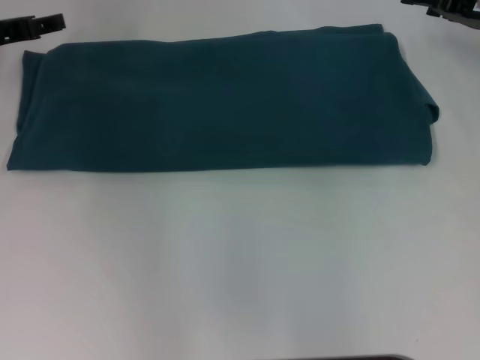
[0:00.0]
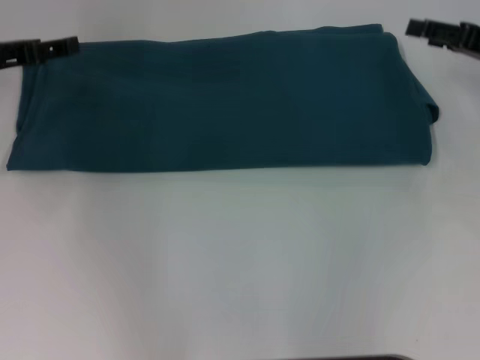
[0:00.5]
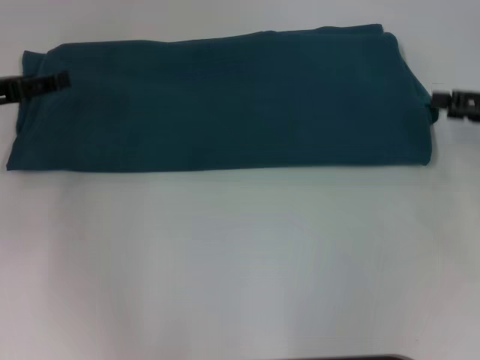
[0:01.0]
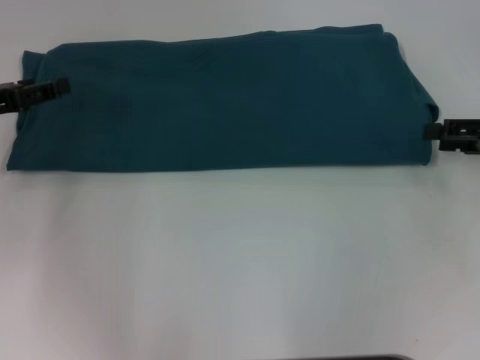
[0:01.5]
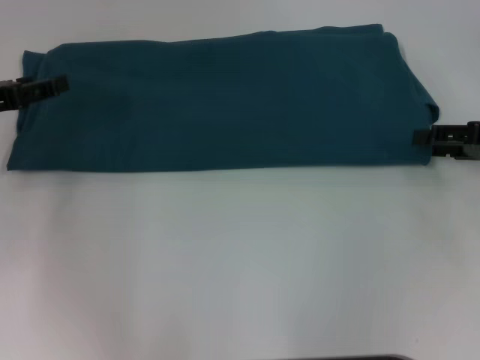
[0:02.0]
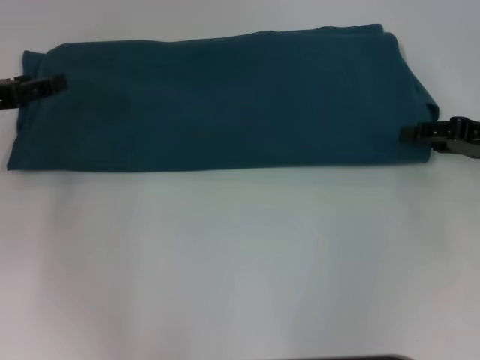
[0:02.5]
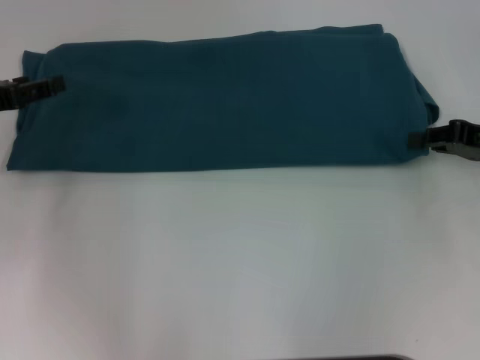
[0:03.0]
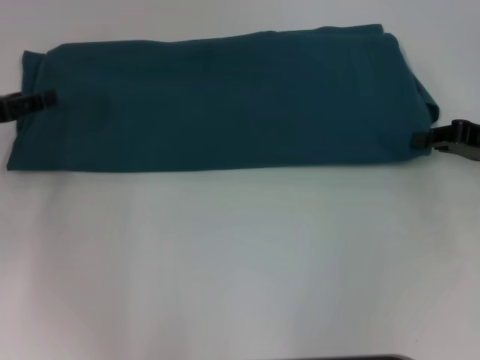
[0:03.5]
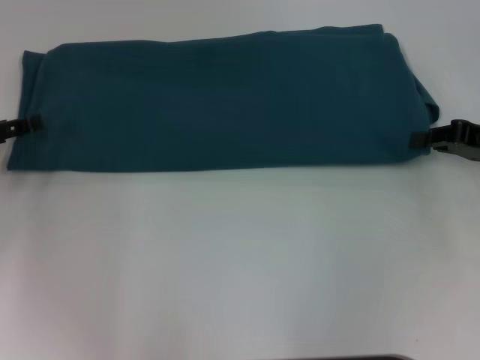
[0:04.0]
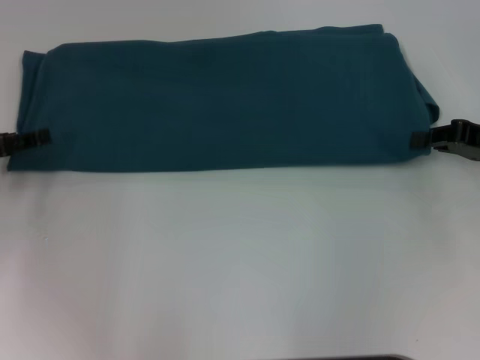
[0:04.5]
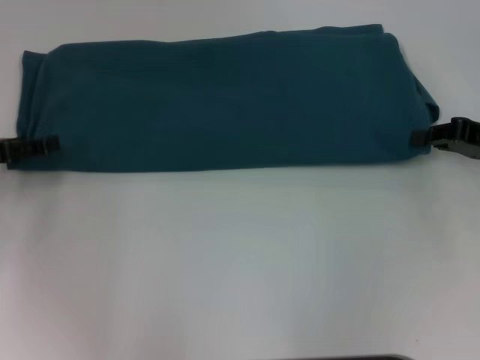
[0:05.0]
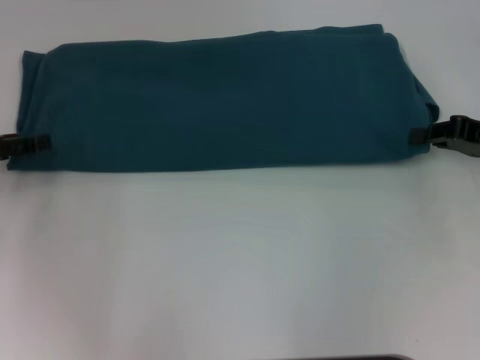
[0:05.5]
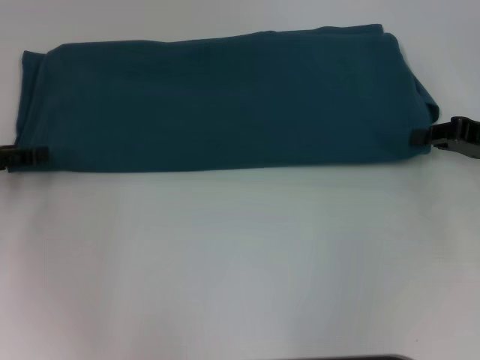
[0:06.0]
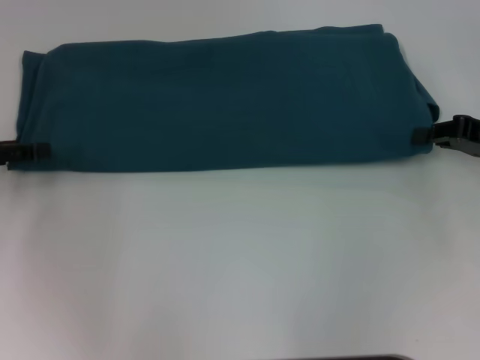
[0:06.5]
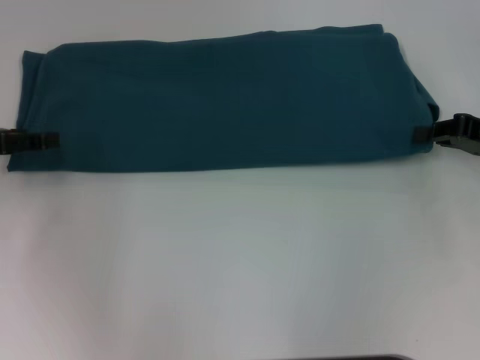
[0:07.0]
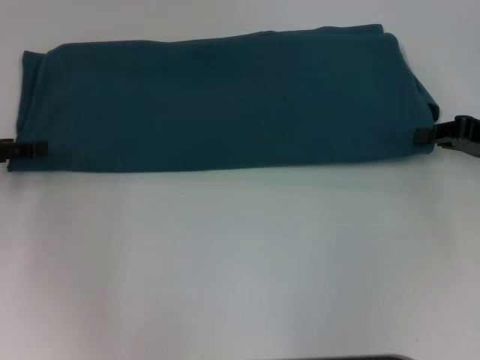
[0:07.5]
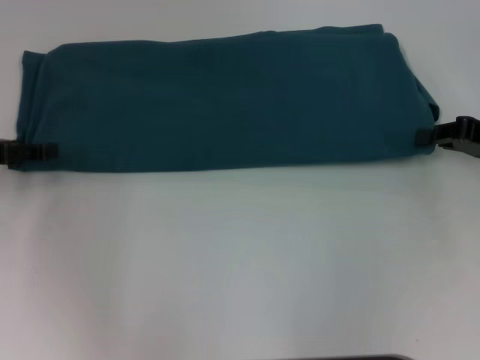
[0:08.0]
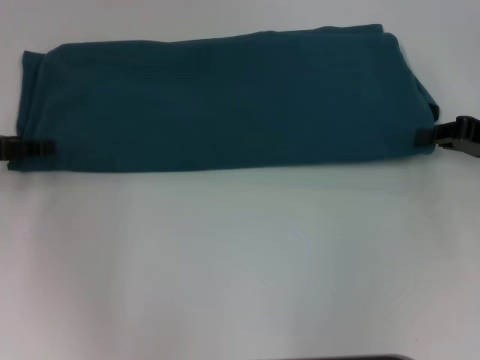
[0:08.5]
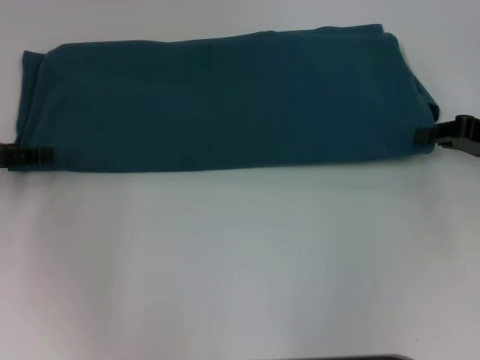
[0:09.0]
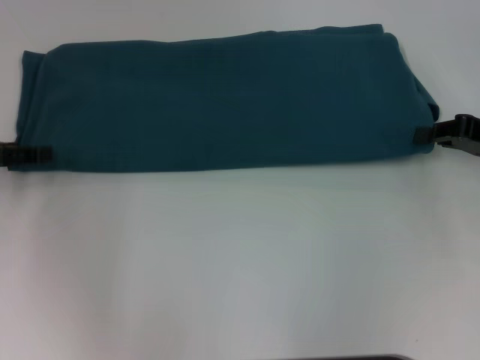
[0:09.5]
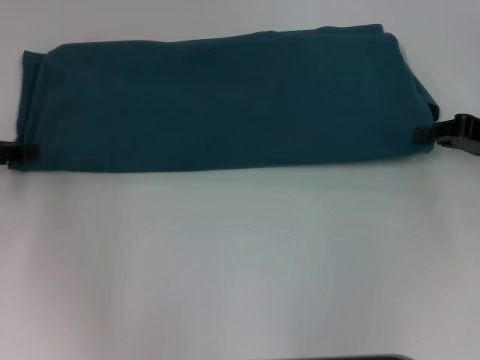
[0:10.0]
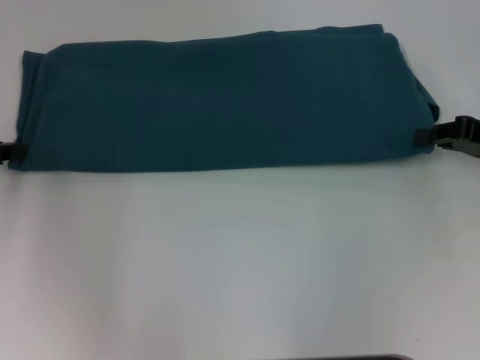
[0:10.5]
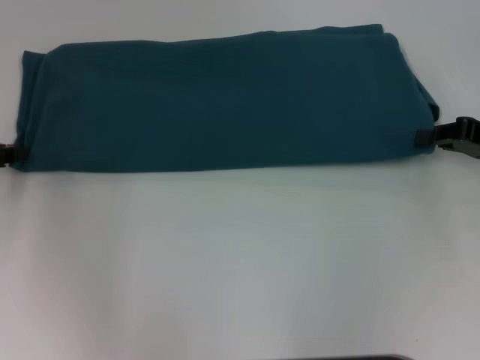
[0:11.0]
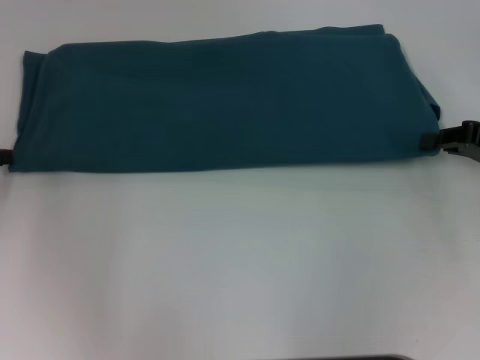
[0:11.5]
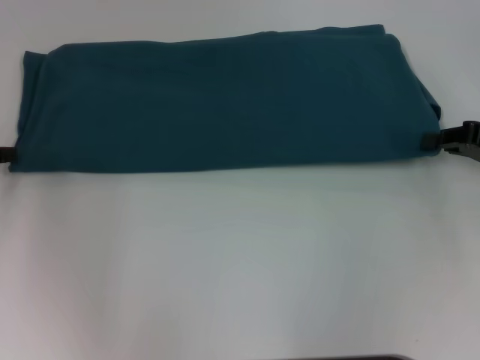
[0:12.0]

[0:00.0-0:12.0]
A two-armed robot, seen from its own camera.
0:00.0 to 0:02.0: Both grippers travel together backward, about 10 cm.
0:08.0 to 0:10.0: Both grippers stay put.

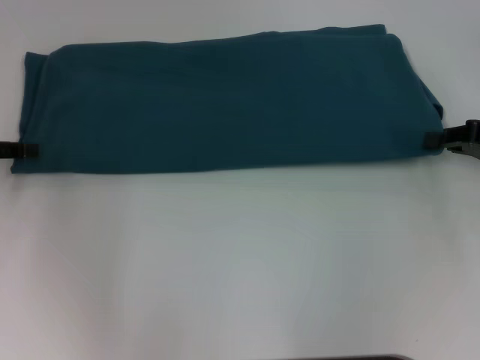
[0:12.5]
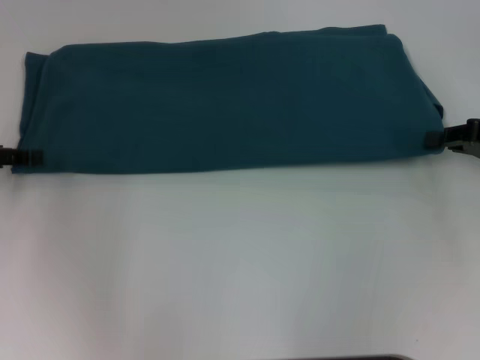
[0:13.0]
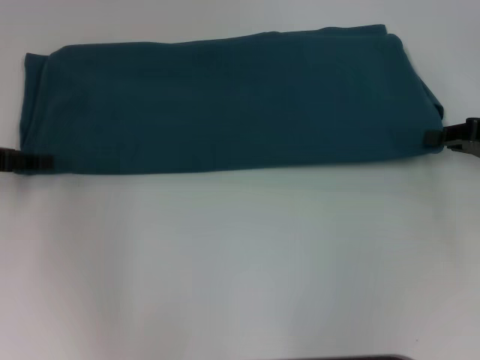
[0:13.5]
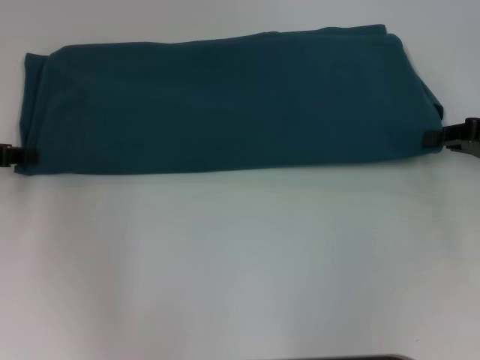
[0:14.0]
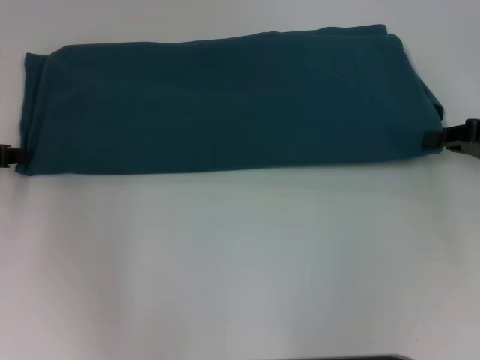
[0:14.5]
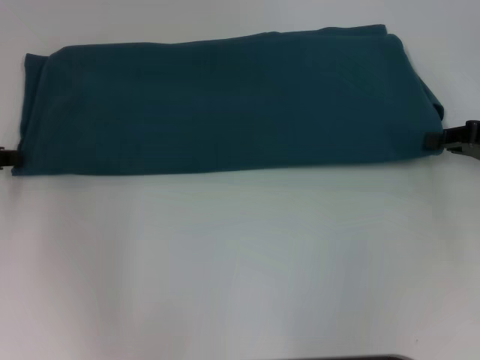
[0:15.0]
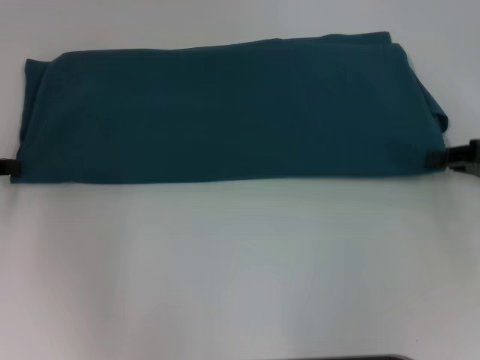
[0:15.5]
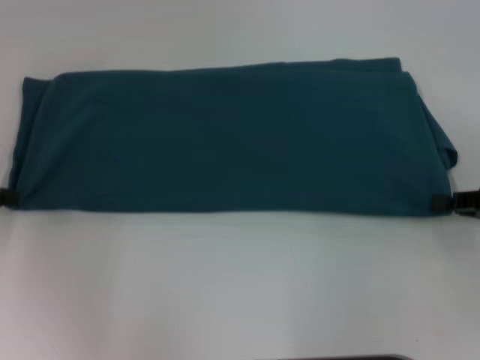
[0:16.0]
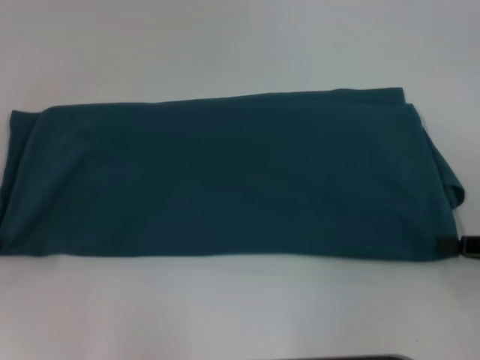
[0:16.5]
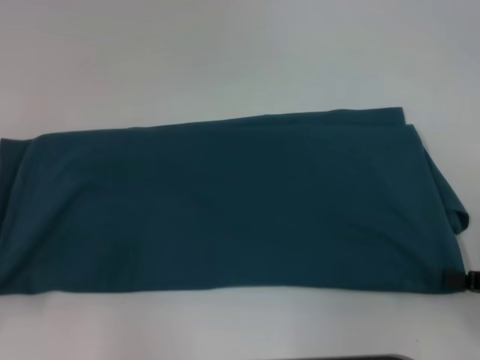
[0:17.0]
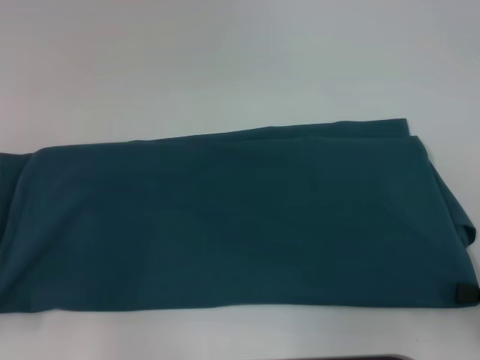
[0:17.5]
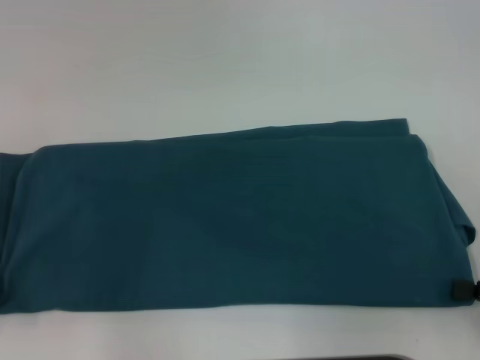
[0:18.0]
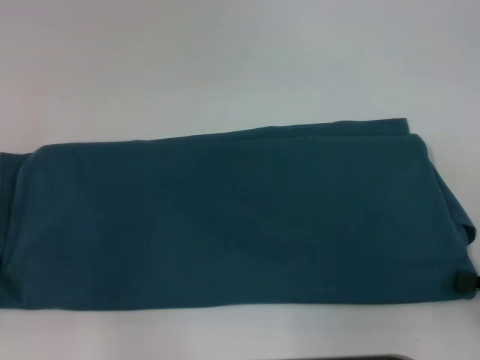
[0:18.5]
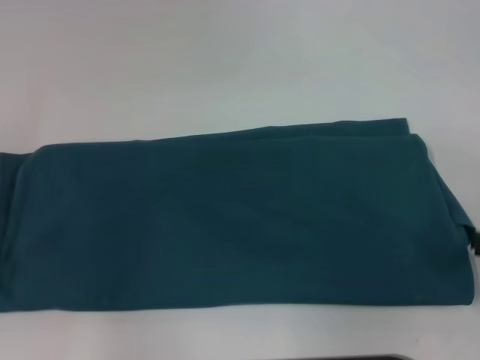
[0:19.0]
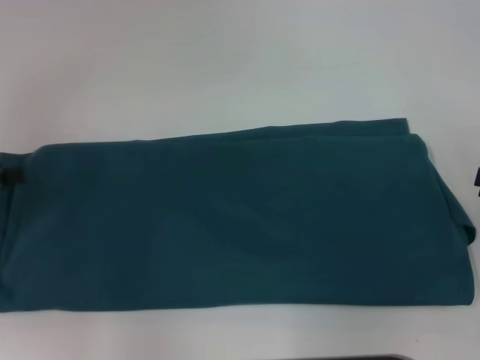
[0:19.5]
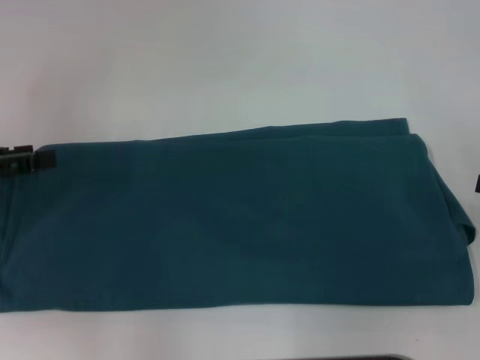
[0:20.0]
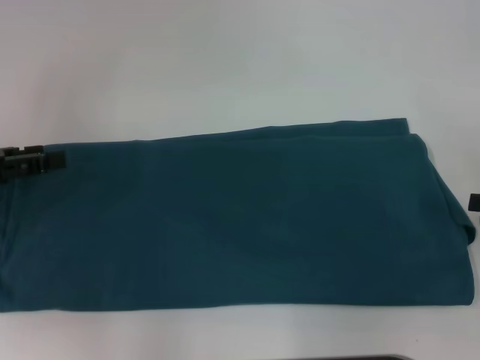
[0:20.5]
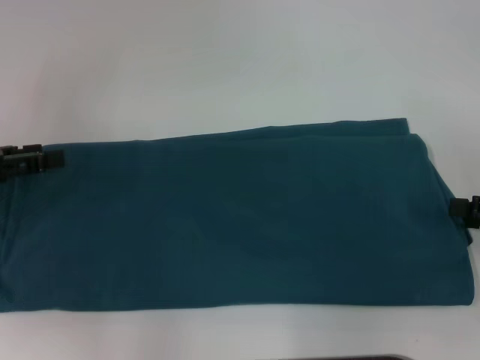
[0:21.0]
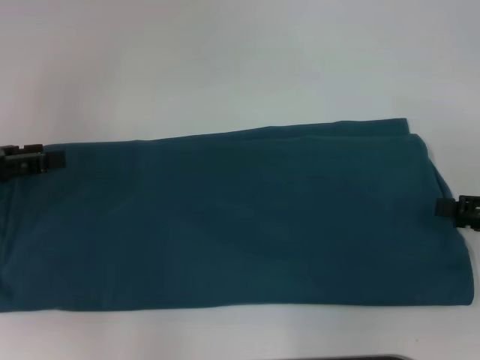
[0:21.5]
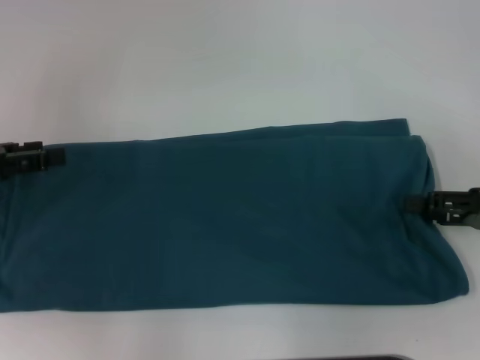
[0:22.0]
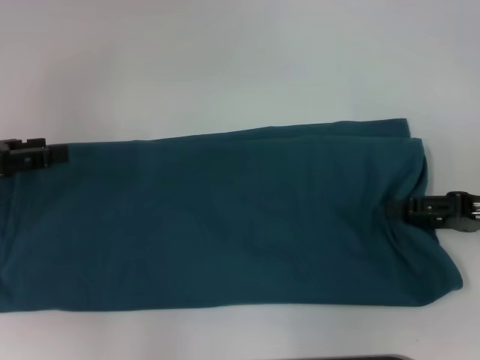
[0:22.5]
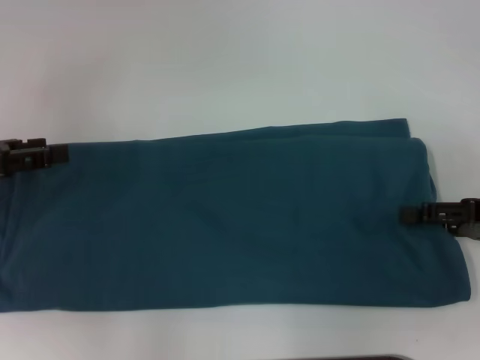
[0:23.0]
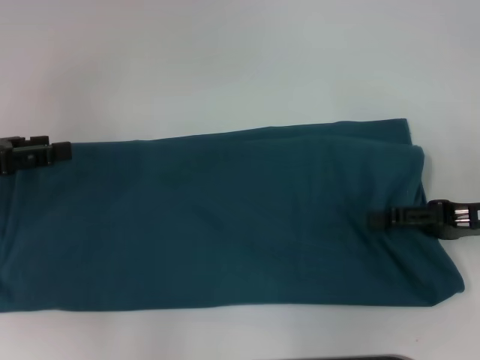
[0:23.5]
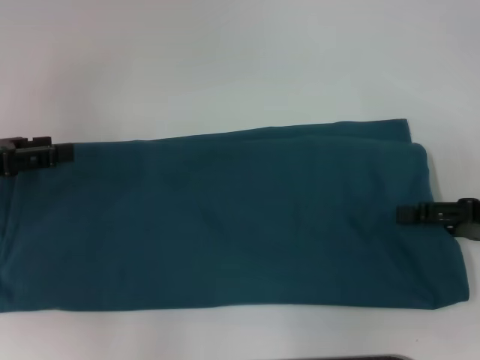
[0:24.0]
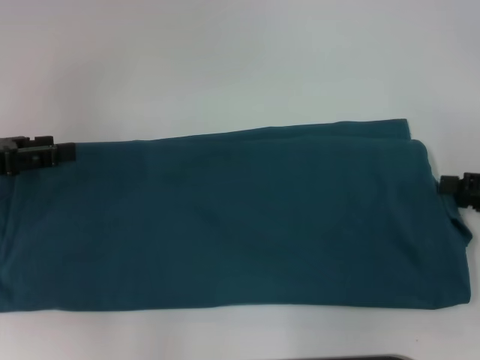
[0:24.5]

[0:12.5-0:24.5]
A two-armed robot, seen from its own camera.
Step, 0:12.5 to 0:18.5: Pull the clothes with your left hand.
Step, 0:12.5 to 0:18.5: Pull the clothes with your right hand.
0:14.5 to 0:16.5: Both grippers move backward, roughly 10 cm.
0:18.5 to 0:20.5: The left gripper travels forward and to the right by roughly 10 cm, and opens up. The right gripper heads forward, covering some 5 cm, and opens up.
0:20.5 to 0:22.5: The right gripper heads to the left, covering roughly 5 cm.
0:22.5 to 0:24.5: The grippers move only a little.

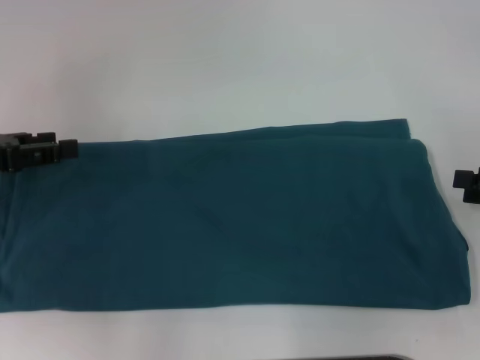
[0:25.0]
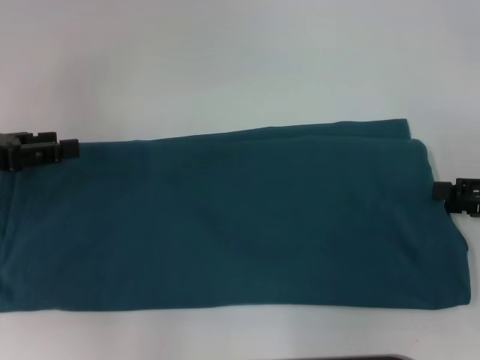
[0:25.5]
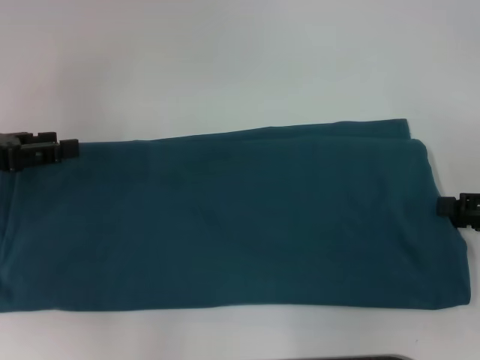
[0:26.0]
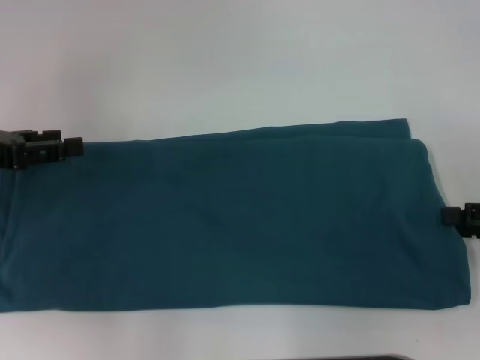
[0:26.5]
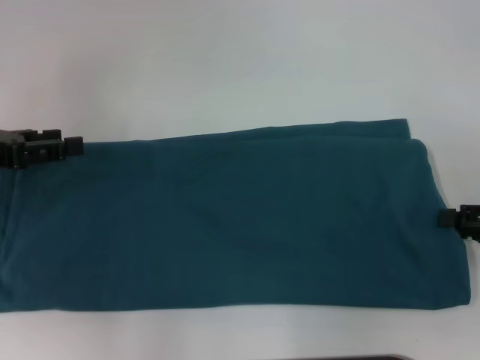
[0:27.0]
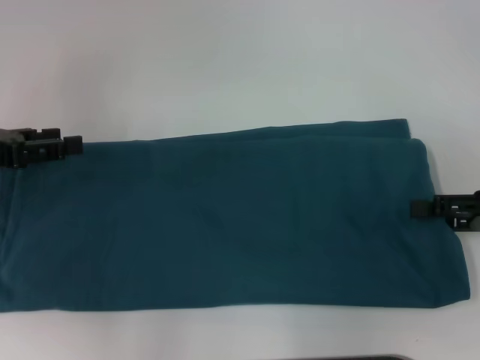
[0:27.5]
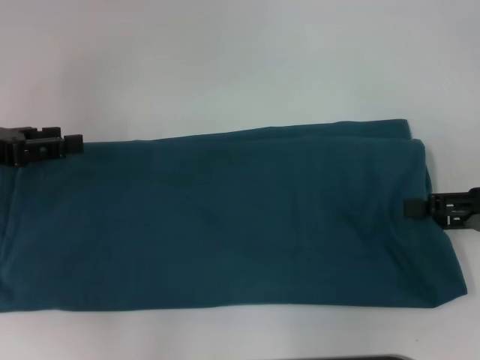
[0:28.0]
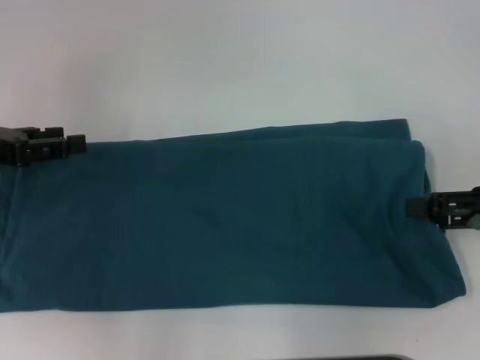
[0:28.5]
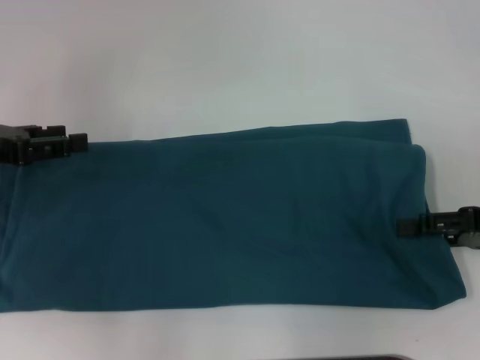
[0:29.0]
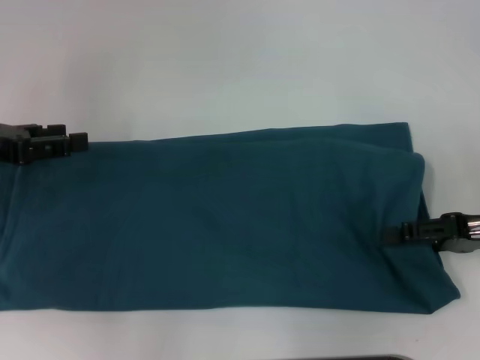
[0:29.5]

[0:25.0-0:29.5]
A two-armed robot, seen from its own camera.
0:25.0 to 0:27.0: There are only small adjustments of the grippers.
0:27.0 to 0:29.5: The right gripper travels to the left by approximately 5 cm.
